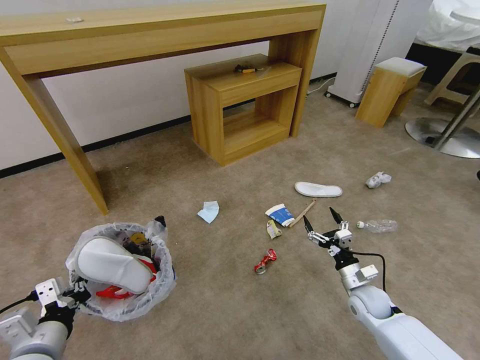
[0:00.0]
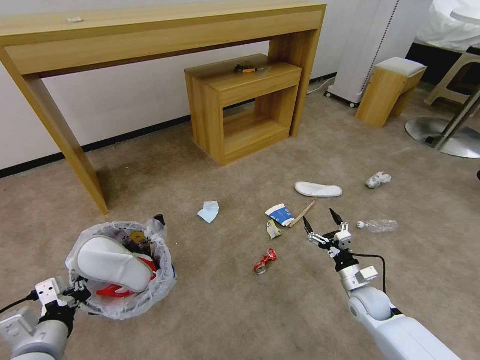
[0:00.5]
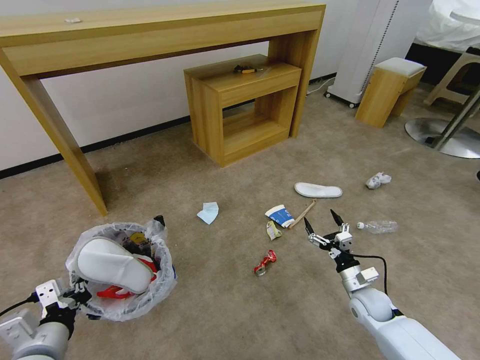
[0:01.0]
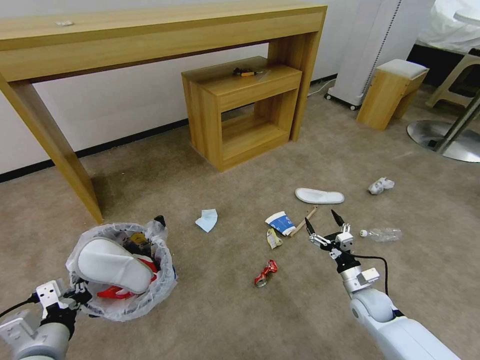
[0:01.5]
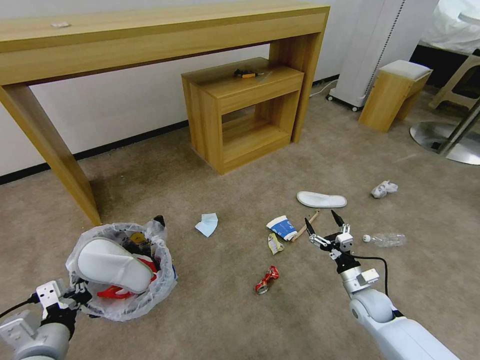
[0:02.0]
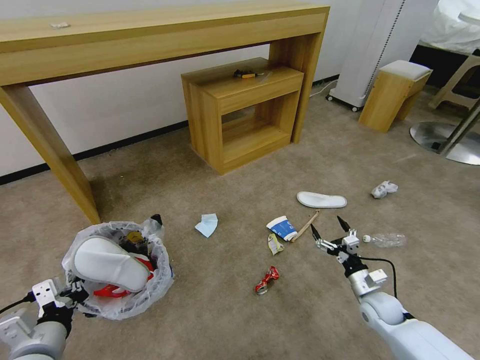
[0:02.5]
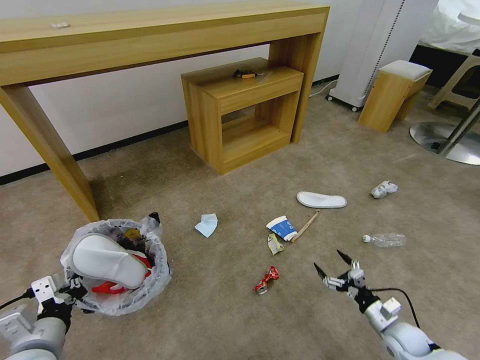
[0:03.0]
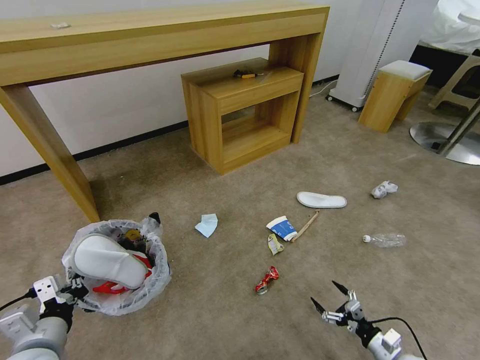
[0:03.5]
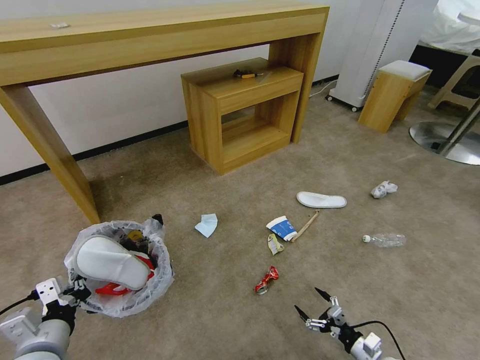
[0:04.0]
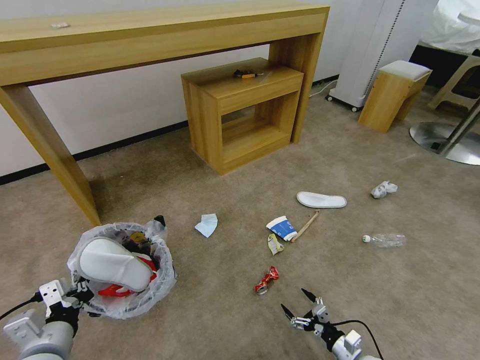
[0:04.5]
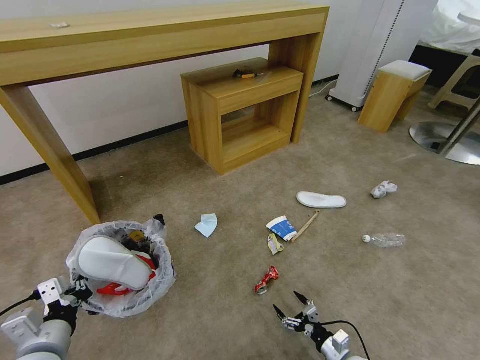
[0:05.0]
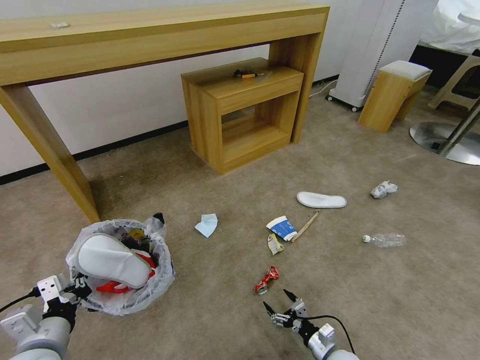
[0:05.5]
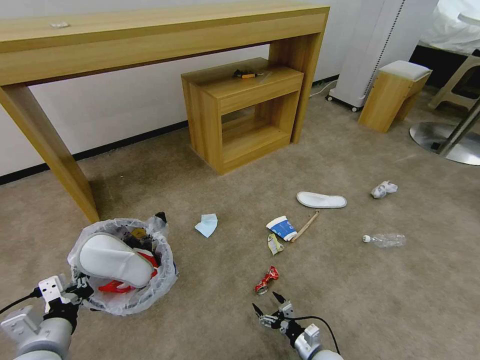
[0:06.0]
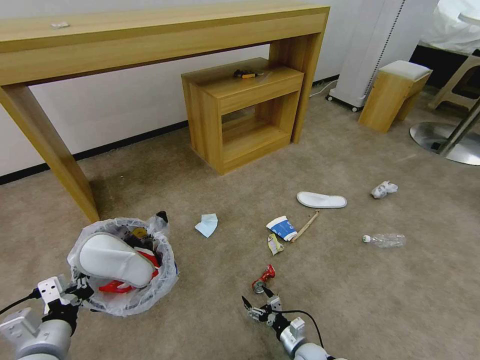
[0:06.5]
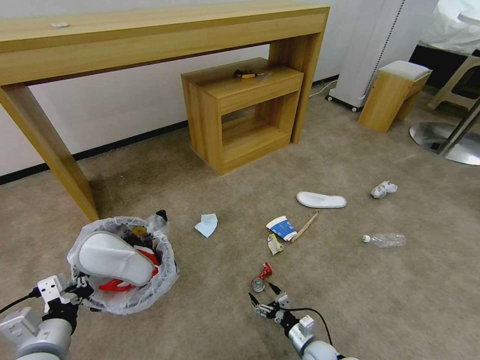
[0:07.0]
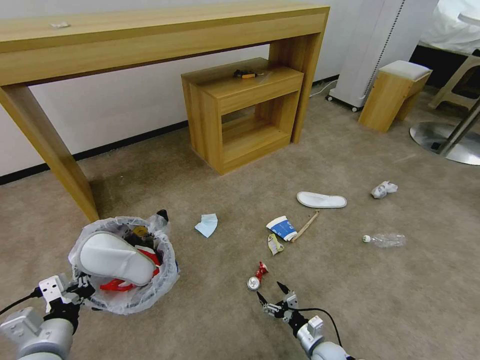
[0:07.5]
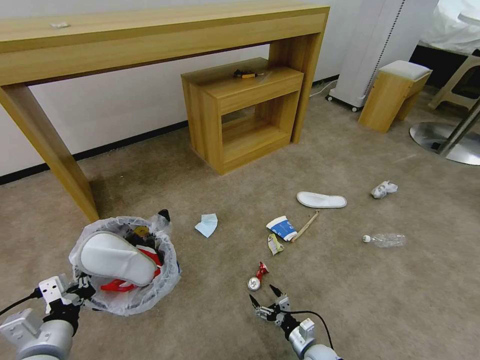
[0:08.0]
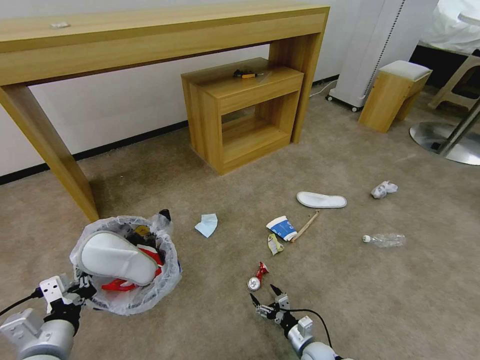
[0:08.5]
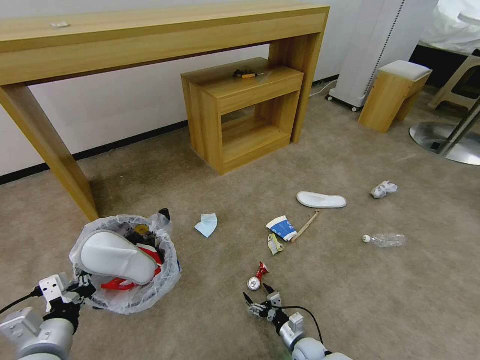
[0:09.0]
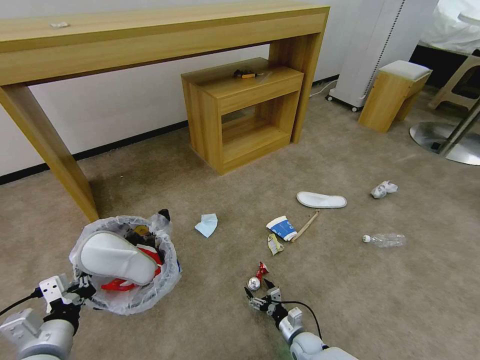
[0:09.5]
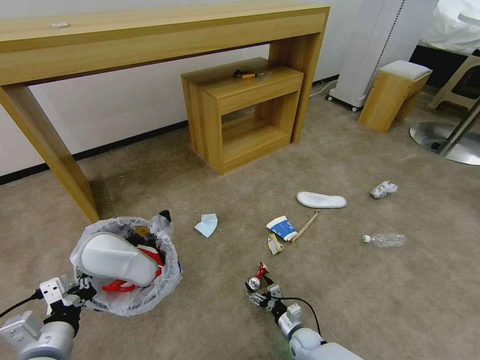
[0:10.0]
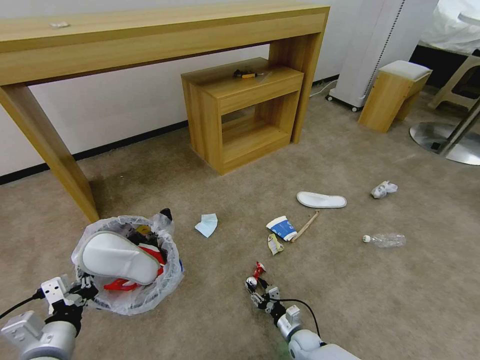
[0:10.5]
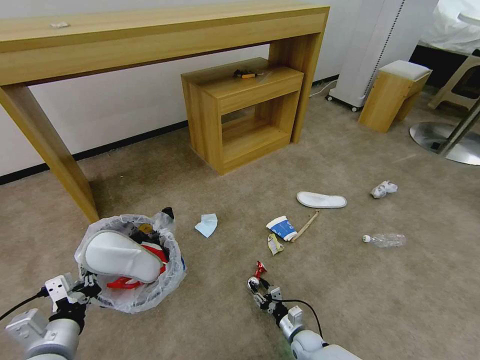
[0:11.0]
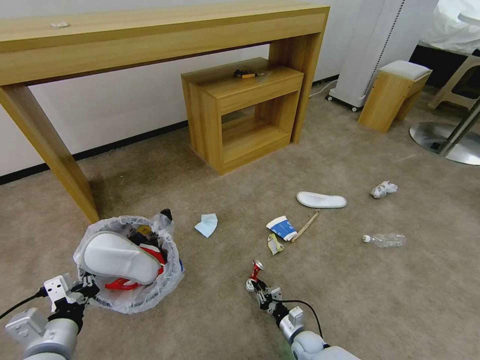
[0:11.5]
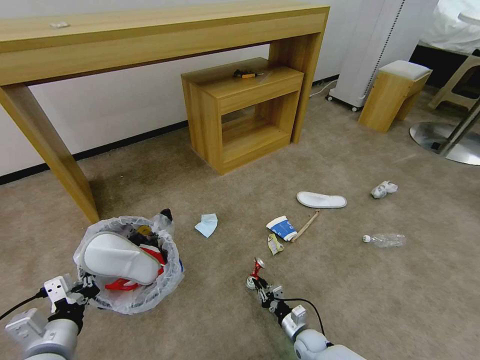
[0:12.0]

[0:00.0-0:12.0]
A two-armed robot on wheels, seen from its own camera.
Task of the whole recording: Pick up the trash bin and place the garbage on the floor into it.
0.0 to 2.0 s: The two grippers keep their place.
2.0 to 4.0 s: The right gripper travels backward and downward by some 15 cm.
4.0 to 6.0 s: The right gripper travels to the left and downward by some 15 cm.
6.0 to 8.0 s: The grippers move only a little.
8.0 to 10.0 s: The right gripper shifts roughly 5 cm forward.
10.0 to 12.0 s: The right gripper closes its fingers.

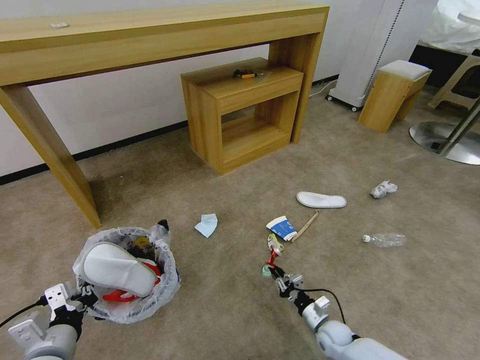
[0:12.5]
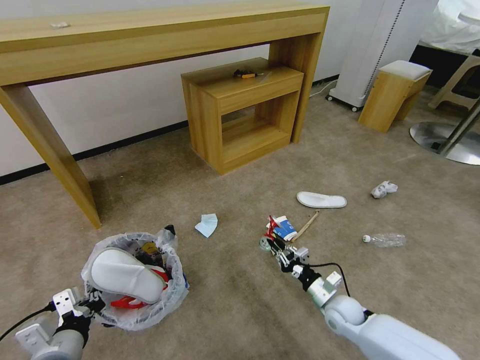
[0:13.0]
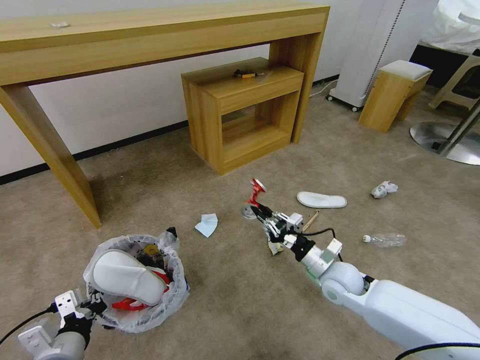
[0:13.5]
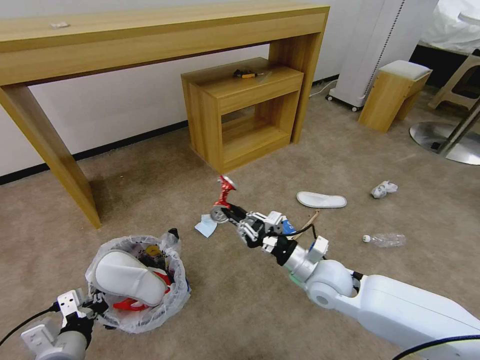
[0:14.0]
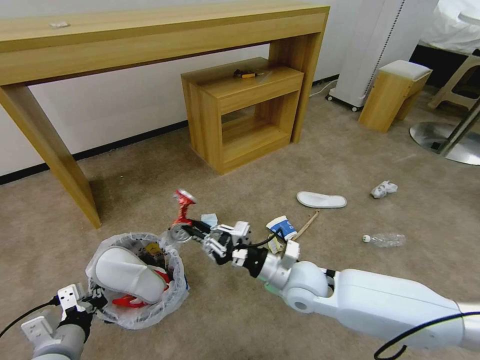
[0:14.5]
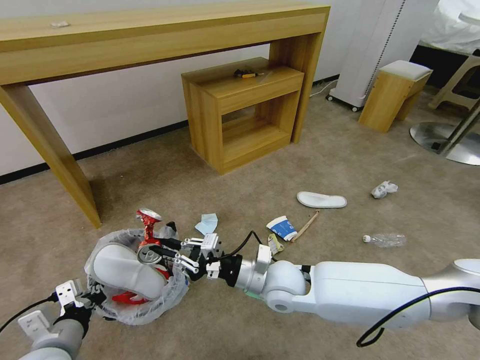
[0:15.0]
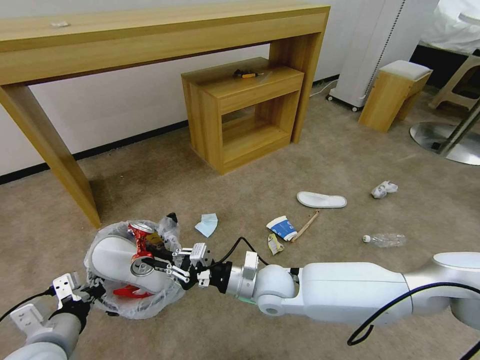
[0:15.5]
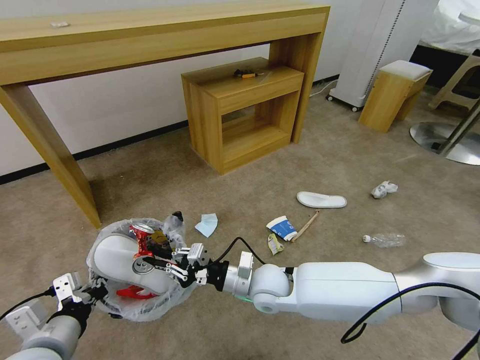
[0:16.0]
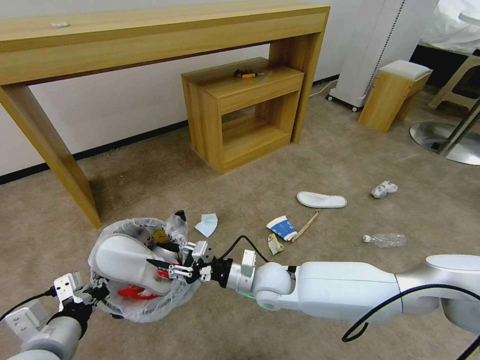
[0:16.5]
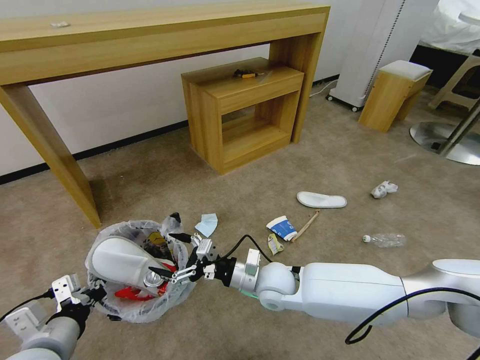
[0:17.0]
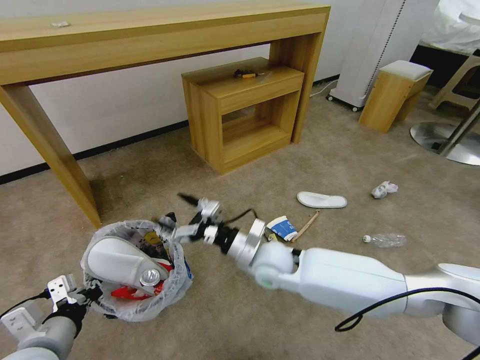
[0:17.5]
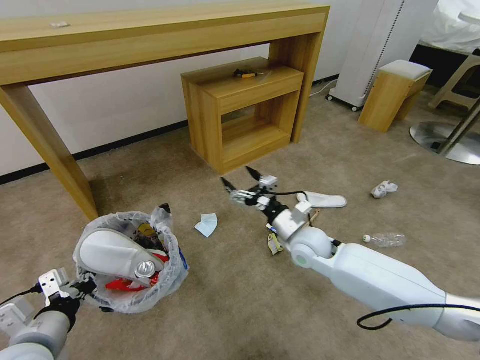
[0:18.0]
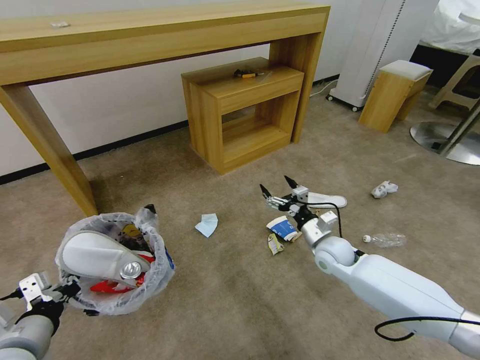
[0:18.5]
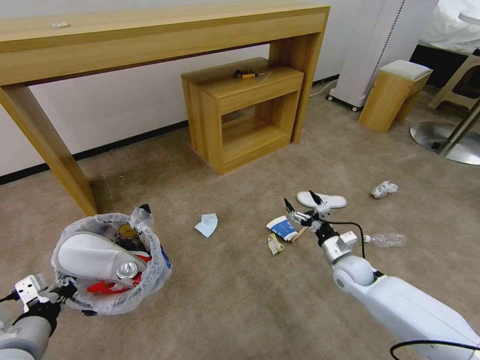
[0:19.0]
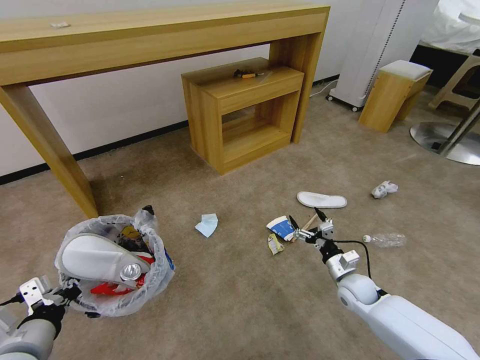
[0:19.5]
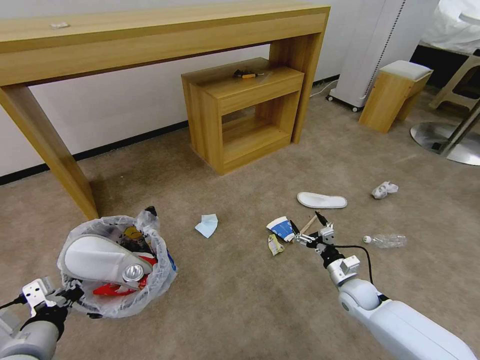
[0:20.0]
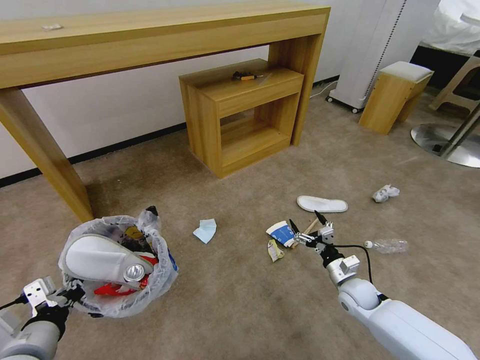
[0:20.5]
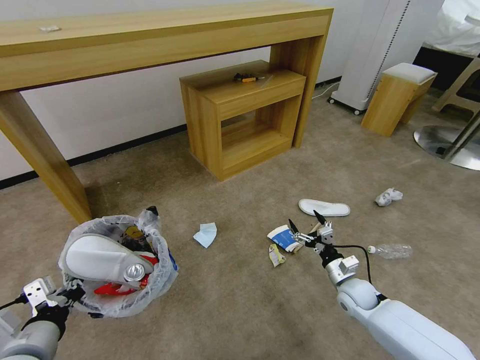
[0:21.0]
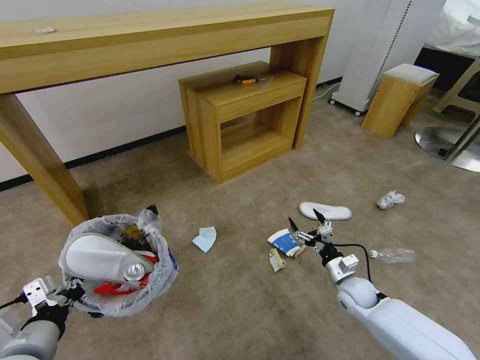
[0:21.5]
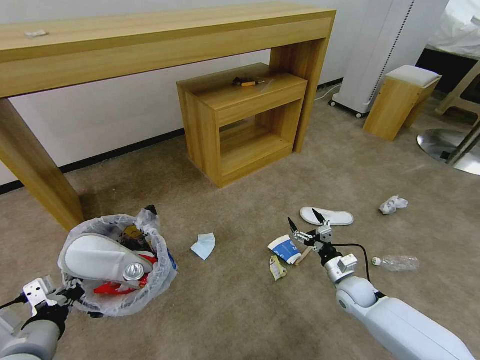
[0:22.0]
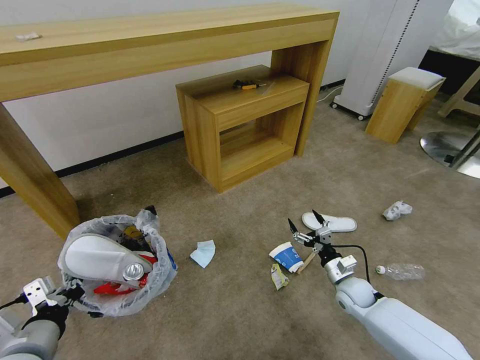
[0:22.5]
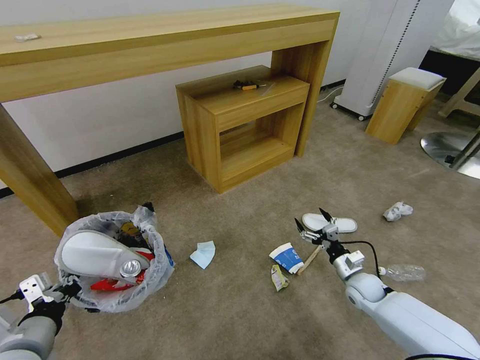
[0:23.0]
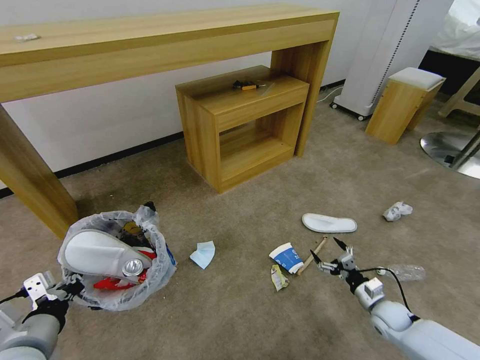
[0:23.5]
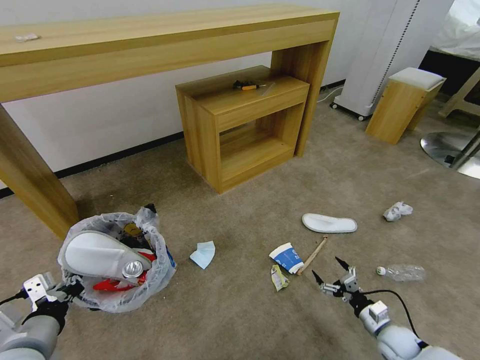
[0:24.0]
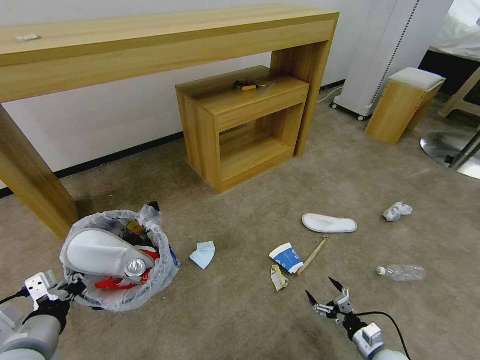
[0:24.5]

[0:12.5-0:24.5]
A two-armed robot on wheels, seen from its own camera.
Task of the whole recording: Pick up the trash bin and place the garbage on the floor into it.
12.5 to 14.5 s: The right gripper travels upward and to the left by about 30 cm.
14.5 to 16.5 s: The left gripper is displaced upward by some 5 cm, while the right gripper heads to the left, covering some 5 cm.
16.5 to 18.5 s: The right gripper moves to the right and forward, some 20 cm, and opens its fingers.
18.5 to 20.5 s: The right gripper is displaced downward, to the right and backward by some 15 cm.
22.5 to 24.5 s: The right gripper heads backward, downward and to the right, covering some 20 cm.

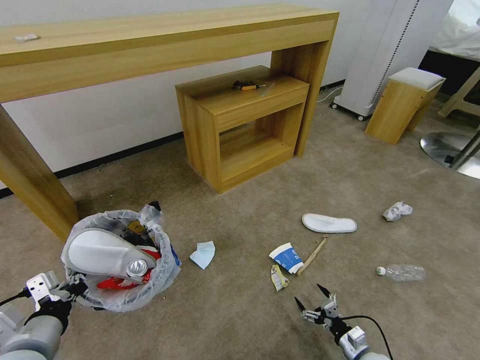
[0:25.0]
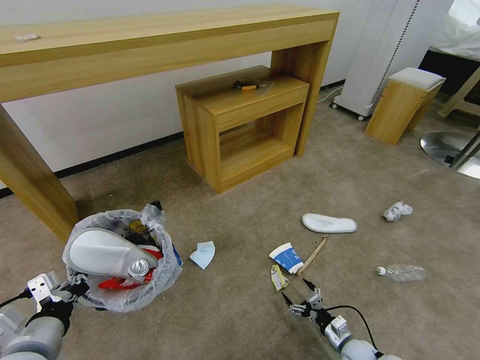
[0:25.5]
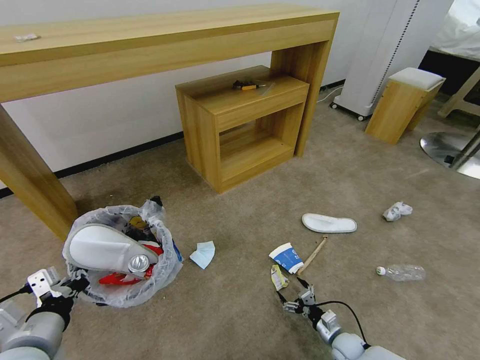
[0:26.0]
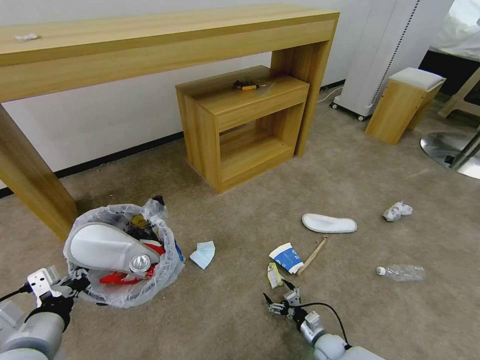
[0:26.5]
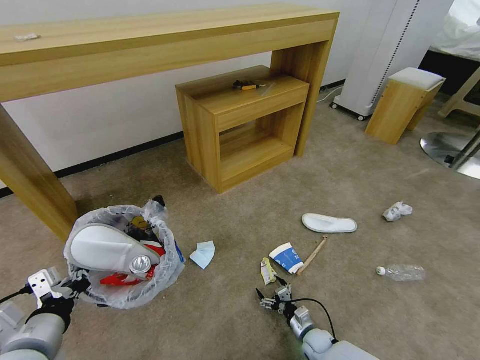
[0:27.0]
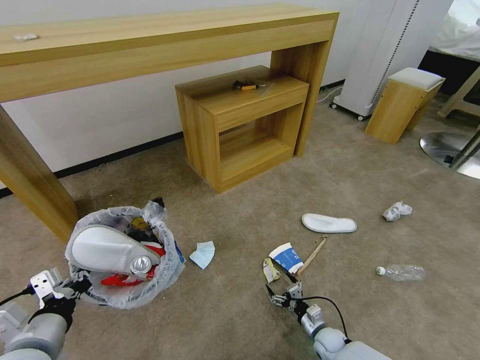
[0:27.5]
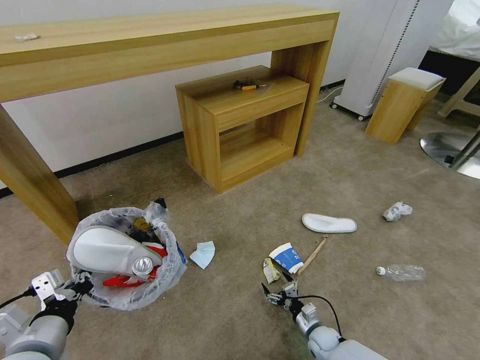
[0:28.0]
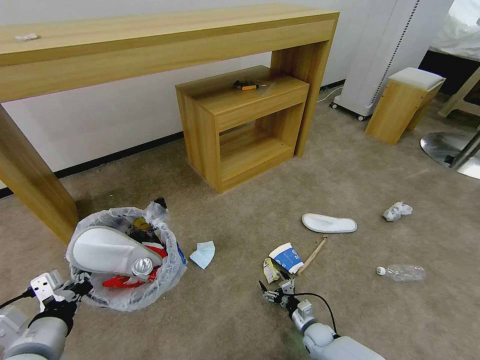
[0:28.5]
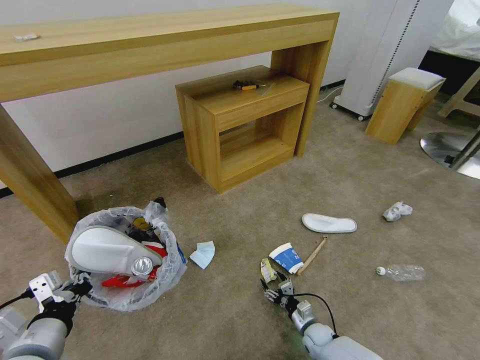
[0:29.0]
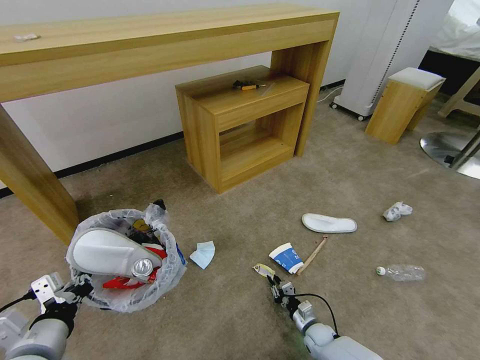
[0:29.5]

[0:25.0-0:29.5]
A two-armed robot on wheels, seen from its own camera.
Task of the whole recording: Pick up the trash bin and place the garbage on the floor into it.
25.0 to 27.0 s: The right gripper moves to the left, forward and downward, about 15 cm.
27.0 to 29.5 s: The right gripper closes up.
